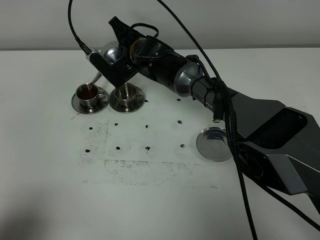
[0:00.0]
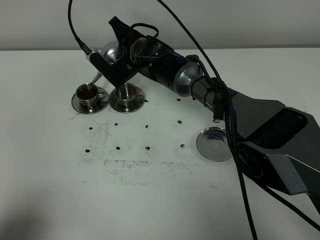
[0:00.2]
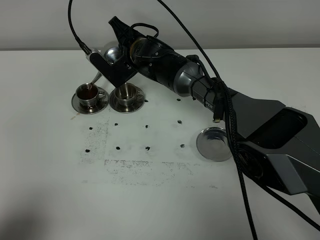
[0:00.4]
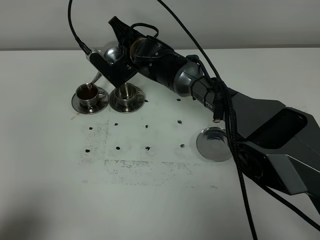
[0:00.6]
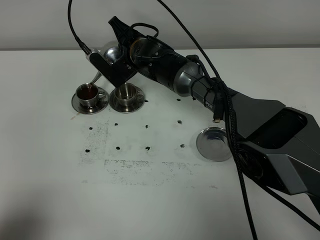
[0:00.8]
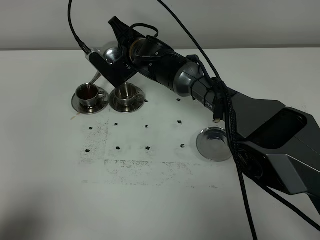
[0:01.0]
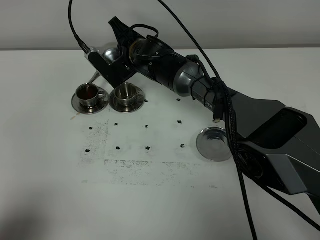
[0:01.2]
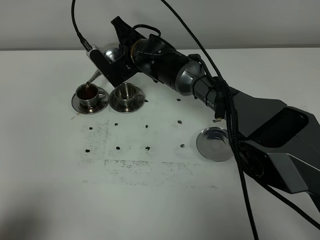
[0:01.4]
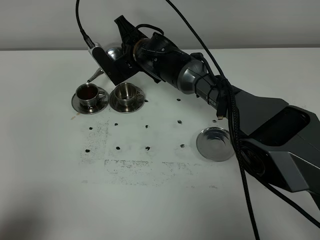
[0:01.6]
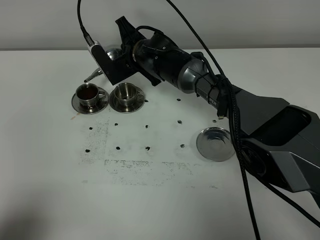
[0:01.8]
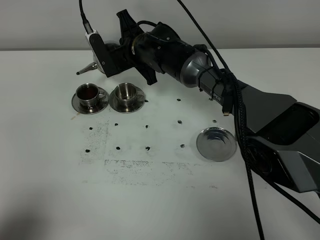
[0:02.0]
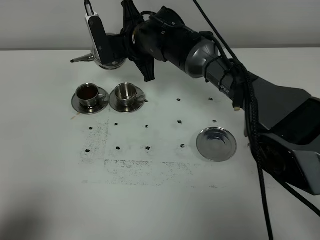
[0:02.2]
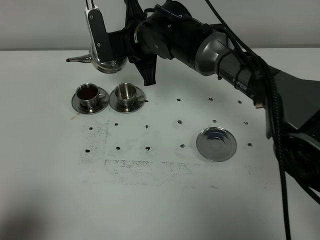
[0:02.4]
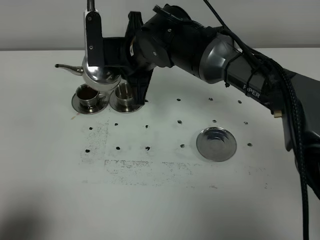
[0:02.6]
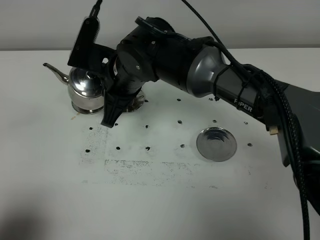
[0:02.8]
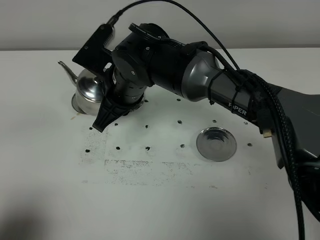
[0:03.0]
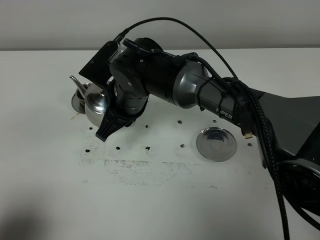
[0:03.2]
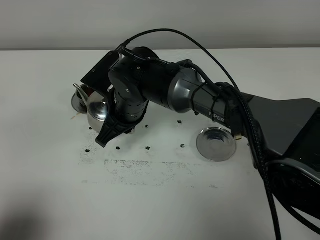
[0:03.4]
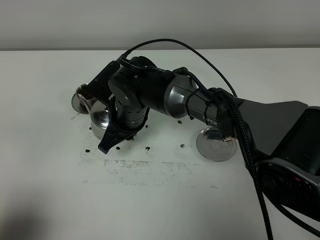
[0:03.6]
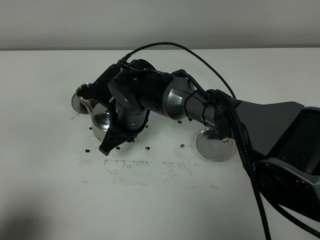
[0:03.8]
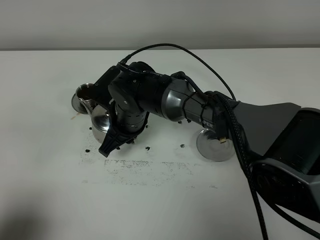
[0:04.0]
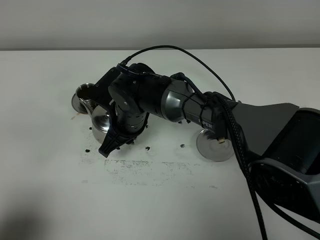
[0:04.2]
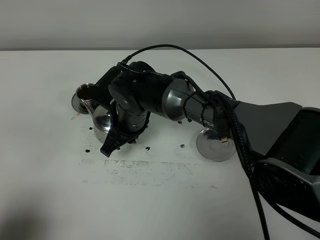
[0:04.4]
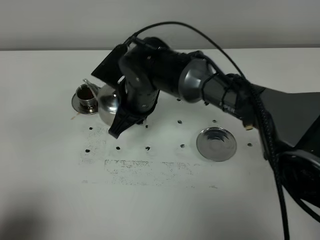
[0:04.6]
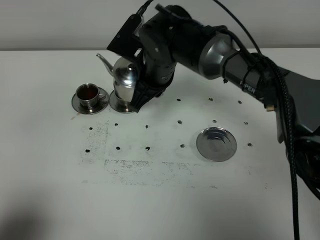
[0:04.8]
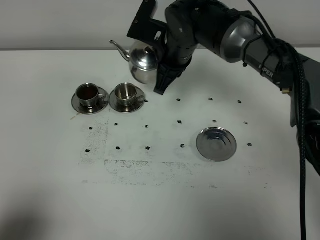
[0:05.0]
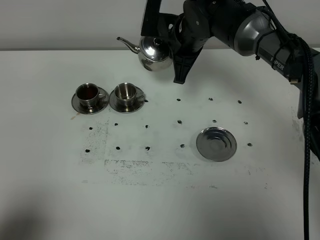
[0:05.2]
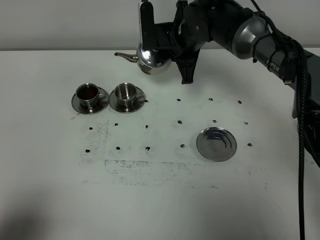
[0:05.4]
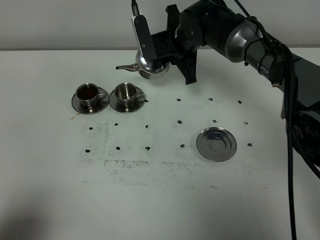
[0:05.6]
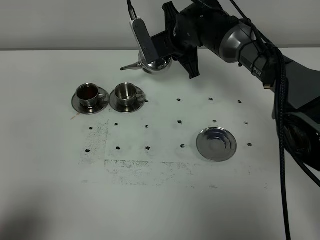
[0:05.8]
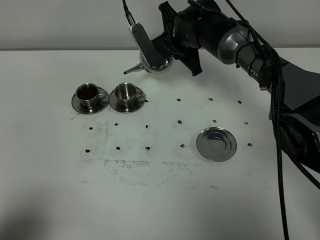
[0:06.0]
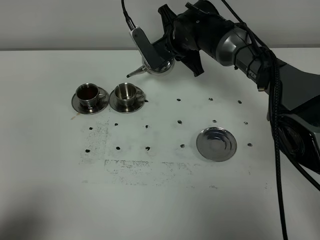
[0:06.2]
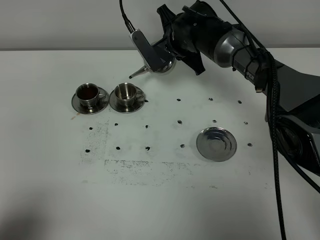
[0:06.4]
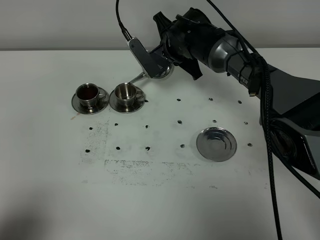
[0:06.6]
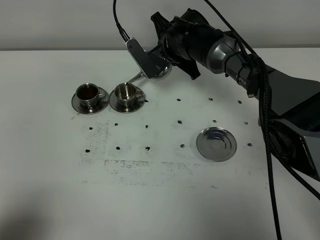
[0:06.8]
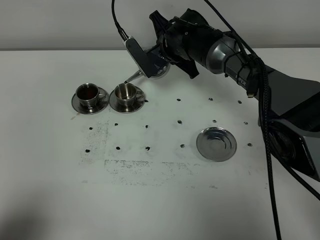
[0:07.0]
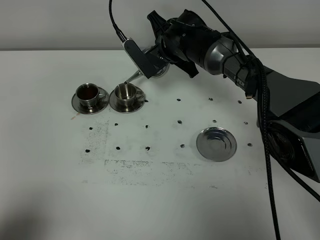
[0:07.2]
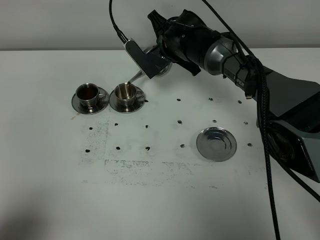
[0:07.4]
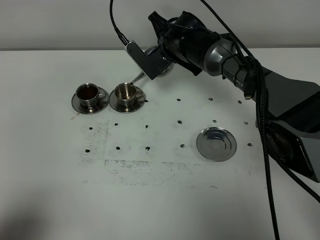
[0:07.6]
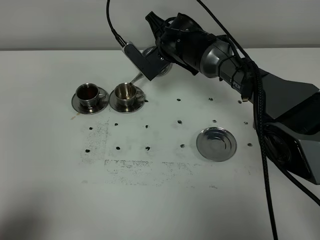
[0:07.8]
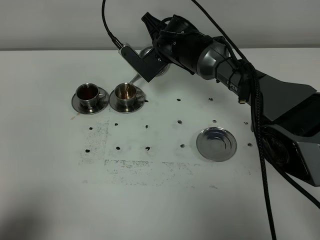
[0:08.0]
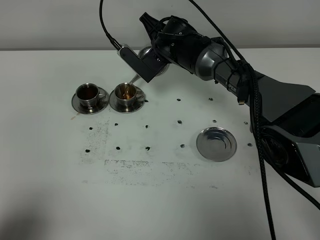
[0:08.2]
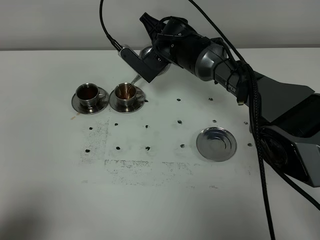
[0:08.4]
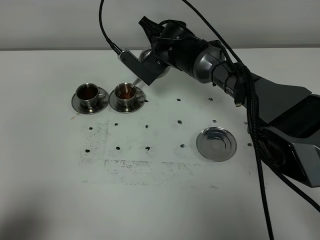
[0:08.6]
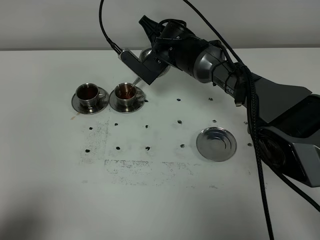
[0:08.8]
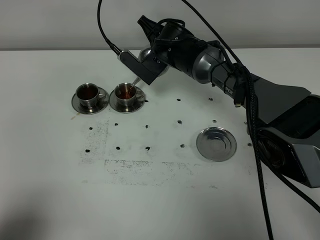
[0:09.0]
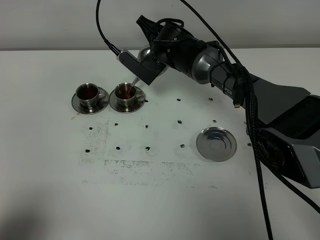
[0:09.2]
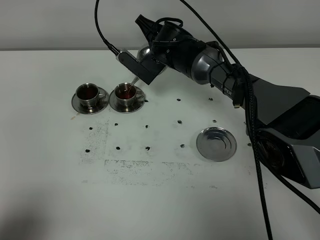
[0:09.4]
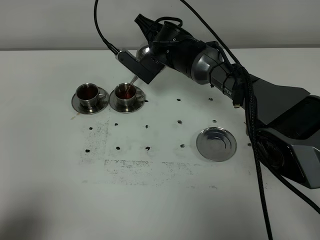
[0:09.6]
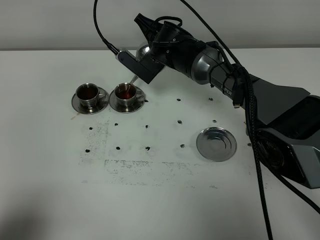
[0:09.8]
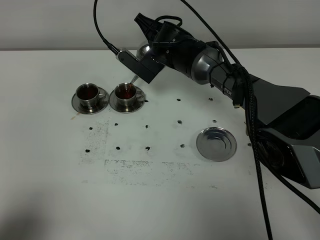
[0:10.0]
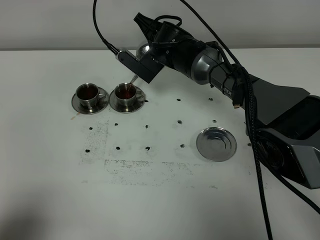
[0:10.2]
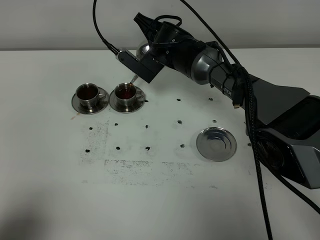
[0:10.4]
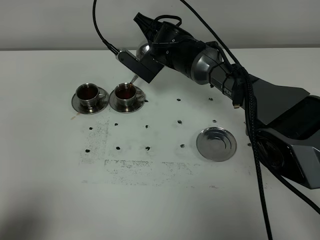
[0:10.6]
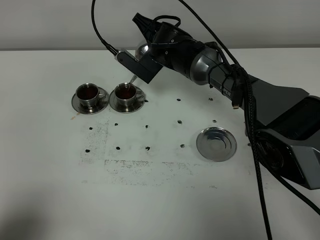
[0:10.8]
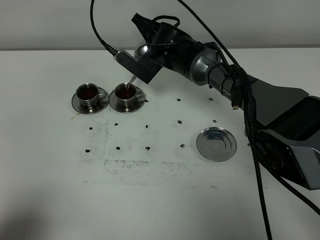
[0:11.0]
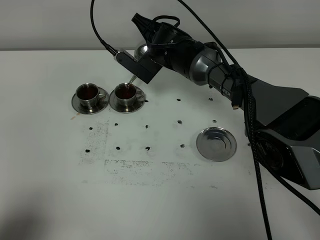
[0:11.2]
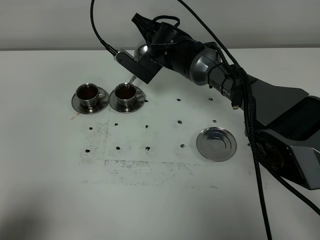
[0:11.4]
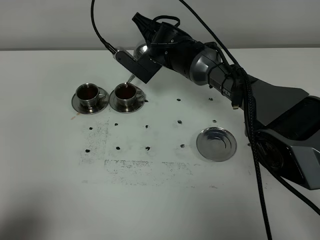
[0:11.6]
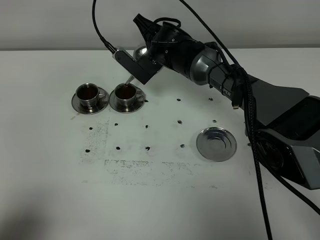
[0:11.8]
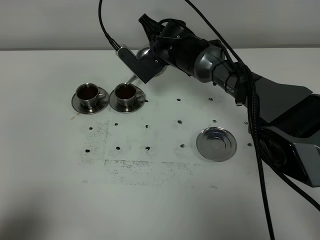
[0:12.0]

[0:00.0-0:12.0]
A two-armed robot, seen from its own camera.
Task of the whole recording: grasp the stainless steel teapot and pour the tea into the two stainless steel teacups one by one, put the stainless steel teapot back in its original place.
0:00.0 to 0:01.6: The grippers stay close to where they were, moving slightly.
0:01.6 to 0:03.0: The right gripper is displaced backward and upward by approximately 15 cm.
0:03.0 to 0:04.4: The right gripper heads downward, covering approximately 5 cm.
0:04.4 to 0:06.0: The right gripper goes roughly 20 cm forward and to the right.
0:06.0 to 0:07.6: The grippers stay close to where they were, moving slightly.
0:07.6 to 0:09.0: The grippers move only a little.
0:09.0 to 0:10.4: Both grippers stay about where they are.
0:10.4 to 0:12.0: There are only small adjustments of the grippers.

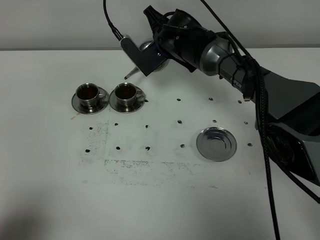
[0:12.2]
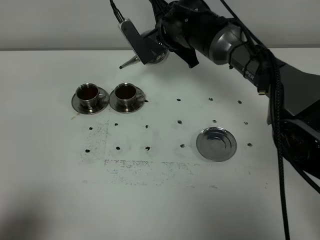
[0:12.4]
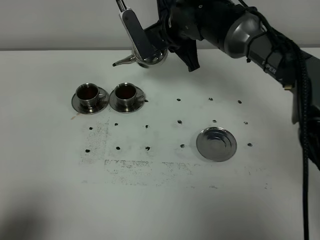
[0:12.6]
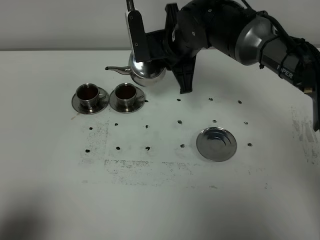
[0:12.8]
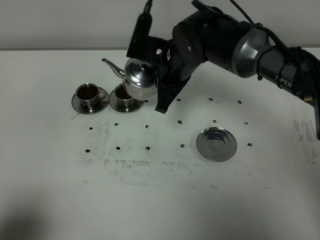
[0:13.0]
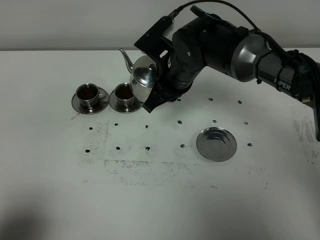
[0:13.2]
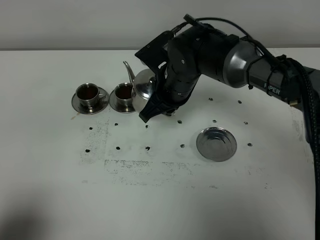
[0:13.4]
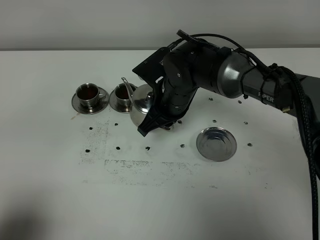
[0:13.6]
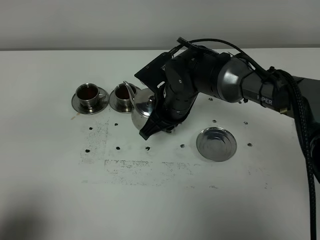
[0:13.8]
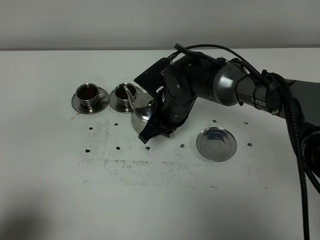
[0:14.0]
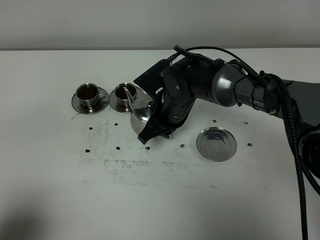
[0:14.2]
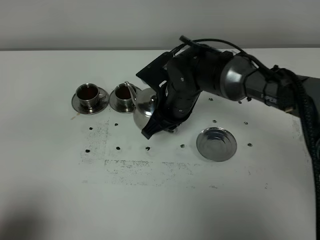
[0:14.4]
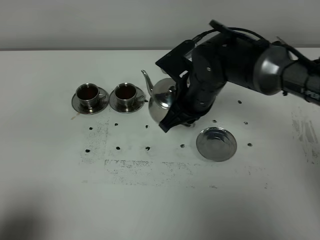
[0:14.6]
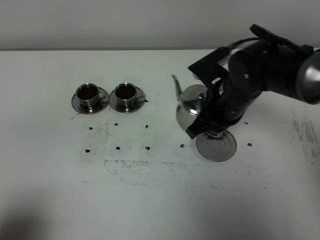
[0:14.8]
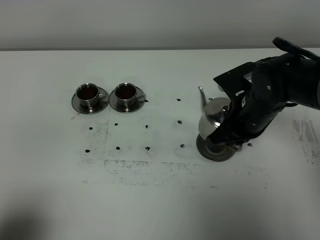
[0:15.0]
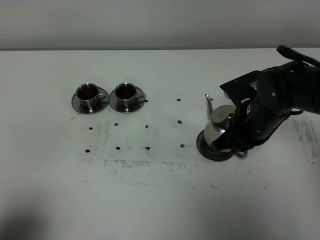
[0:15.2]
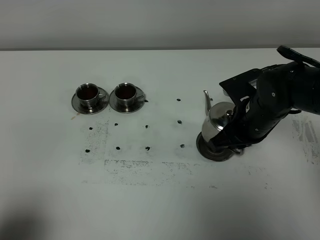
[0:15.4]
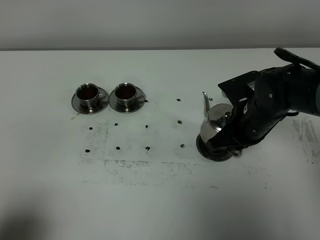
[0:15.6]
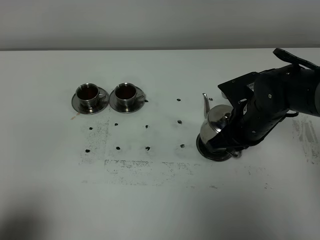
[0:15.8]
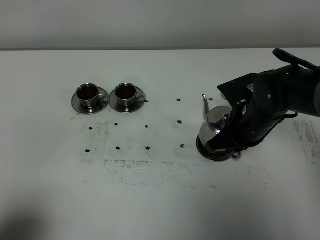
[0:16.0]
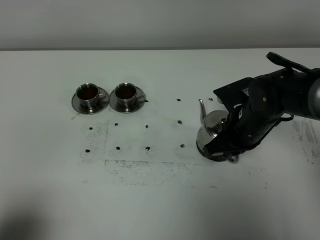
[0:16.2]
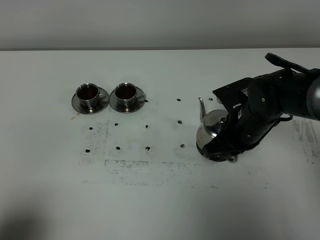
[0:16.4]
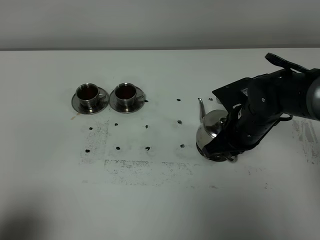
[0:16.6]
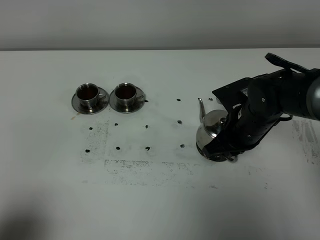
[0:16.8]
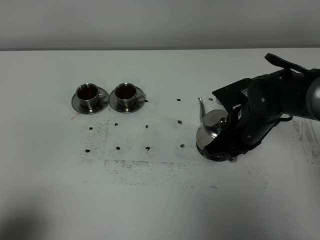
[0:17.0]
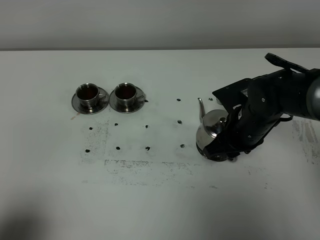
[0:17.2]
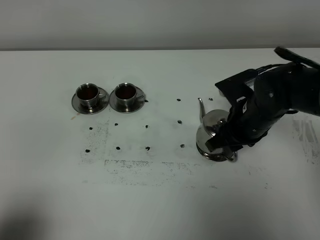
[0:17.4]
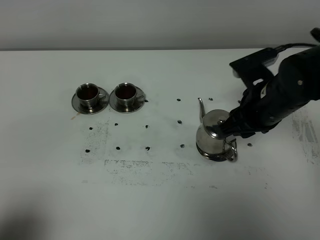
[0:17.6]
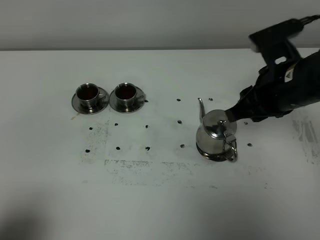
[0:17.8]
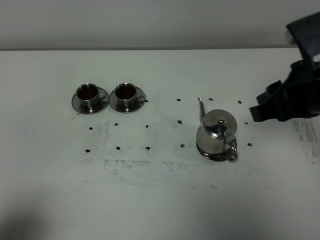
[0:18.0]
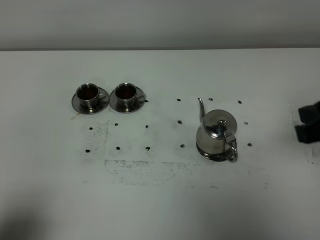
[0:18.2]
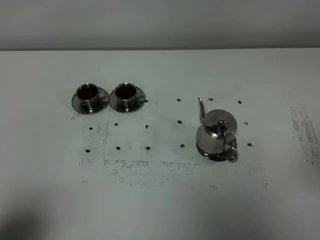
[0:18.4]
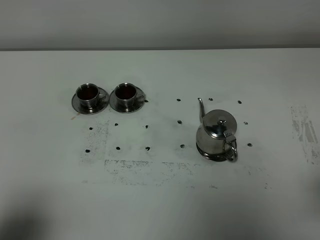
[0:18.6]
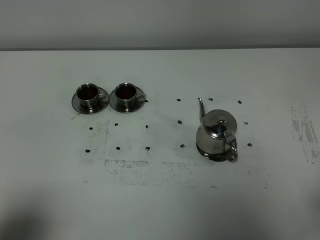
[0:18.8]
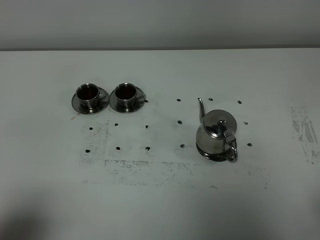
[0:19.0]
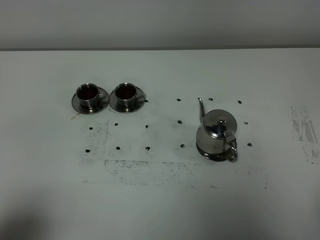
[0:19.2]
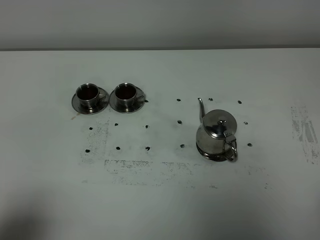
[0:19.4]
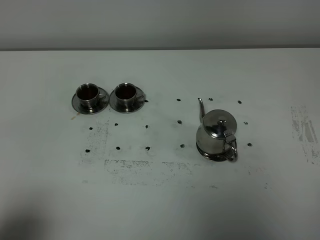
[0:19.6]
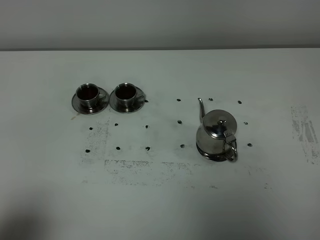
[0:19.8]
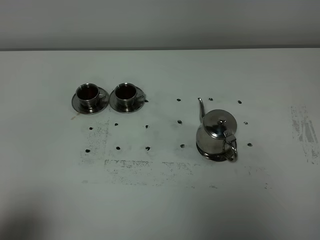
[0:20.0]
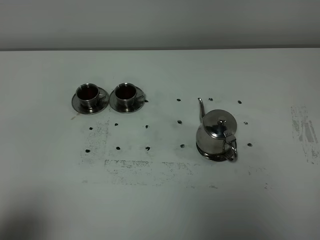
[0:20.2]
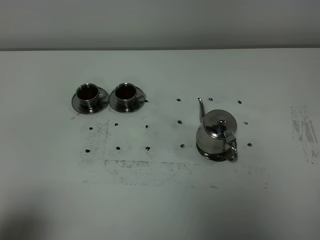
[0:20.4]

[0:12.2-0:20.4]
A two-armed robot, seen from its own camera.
Task of the whole recording: grasp the stainless steel teapot and pour the tea into the two stainless steel teacups one by one, put the stainless steel teapot back in its original place.
0:12.2 to 0:13.8: The right gripper goes approximately 10 cm backward.
0:13.8 to 0:15.4: The right gripper heads to the right and backward, covering about 15 cm.
0:15.4 to 0:17.2: The right gripper opens its fingers.
0:17.2 to 0:18.8: The right gripper is displaced backward, upward and to the right by about 35 cm.
